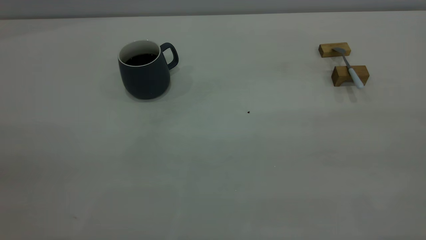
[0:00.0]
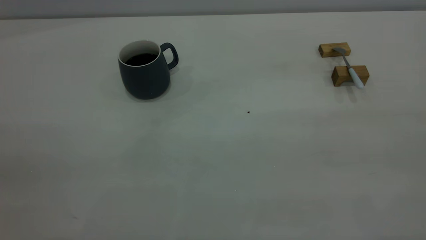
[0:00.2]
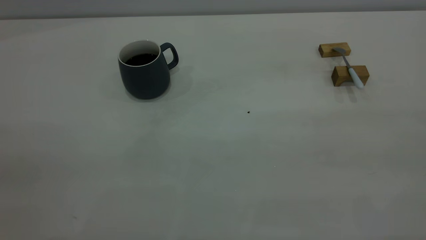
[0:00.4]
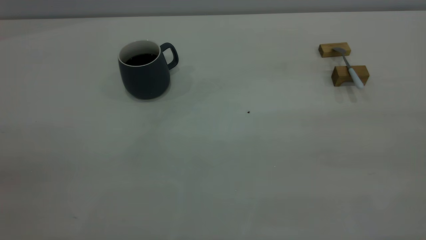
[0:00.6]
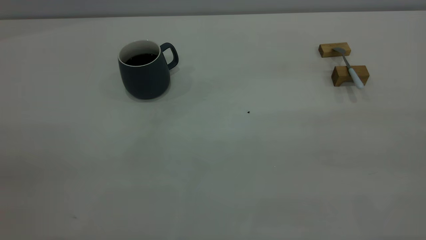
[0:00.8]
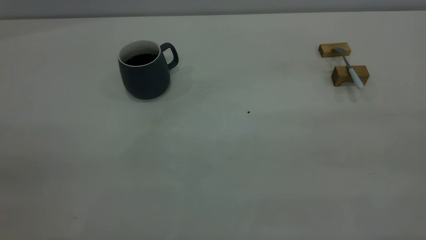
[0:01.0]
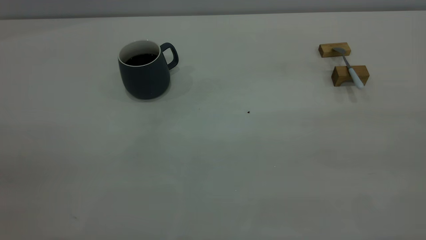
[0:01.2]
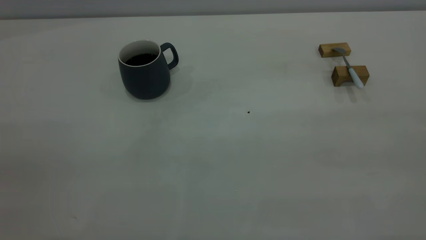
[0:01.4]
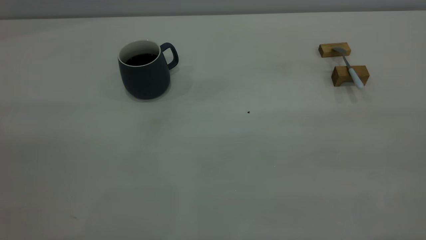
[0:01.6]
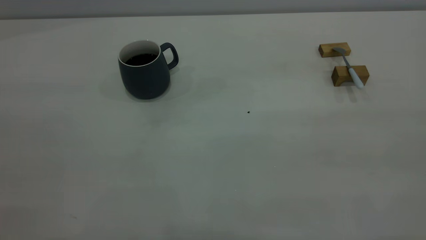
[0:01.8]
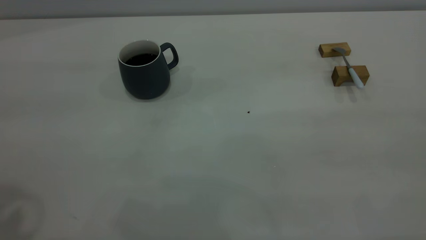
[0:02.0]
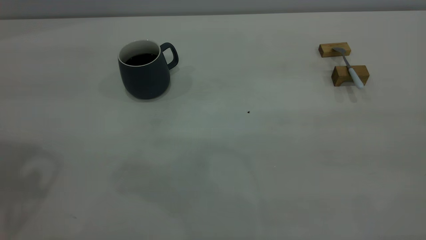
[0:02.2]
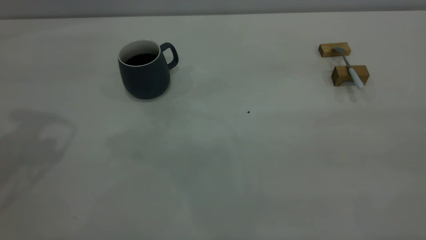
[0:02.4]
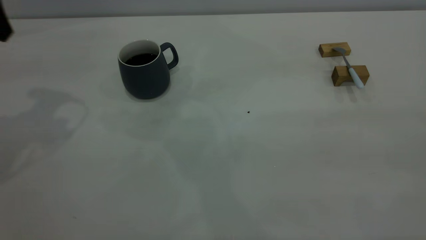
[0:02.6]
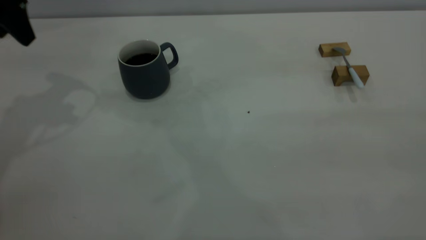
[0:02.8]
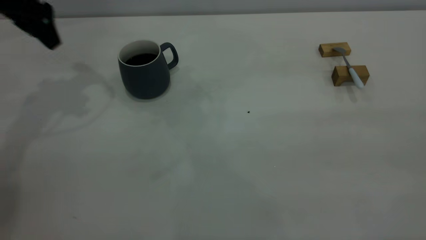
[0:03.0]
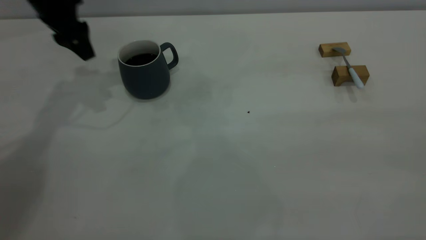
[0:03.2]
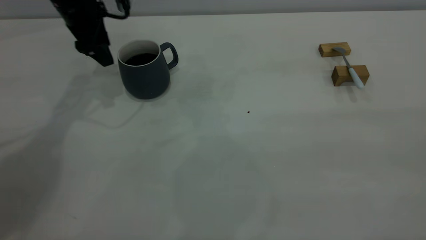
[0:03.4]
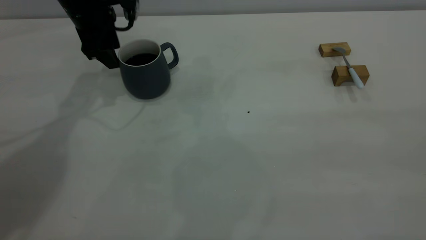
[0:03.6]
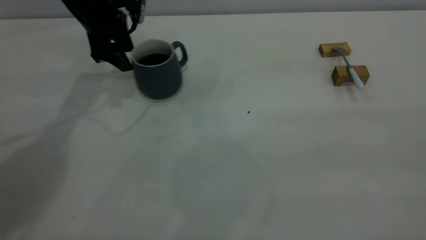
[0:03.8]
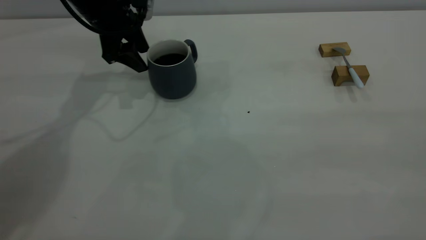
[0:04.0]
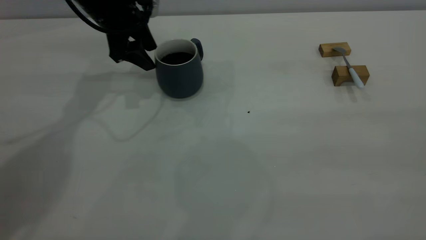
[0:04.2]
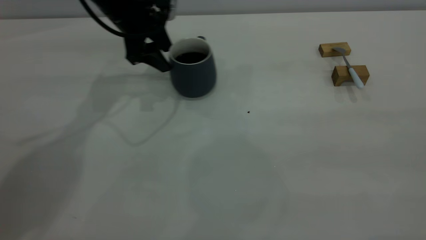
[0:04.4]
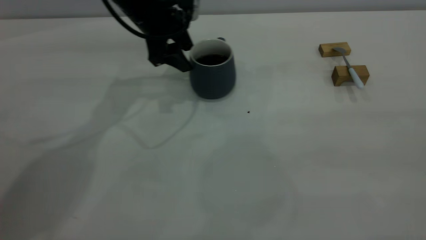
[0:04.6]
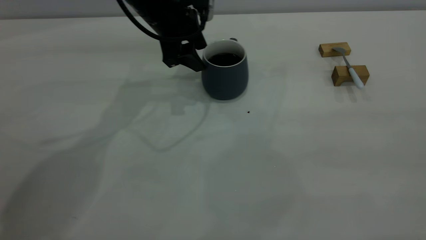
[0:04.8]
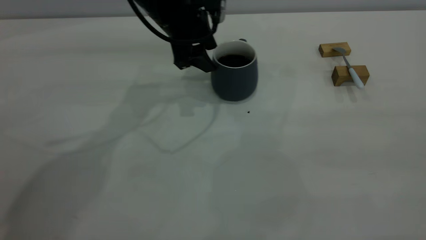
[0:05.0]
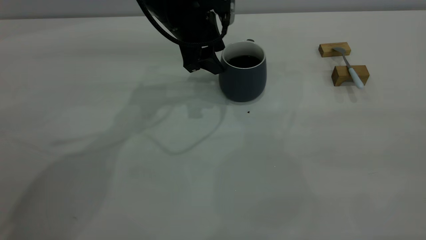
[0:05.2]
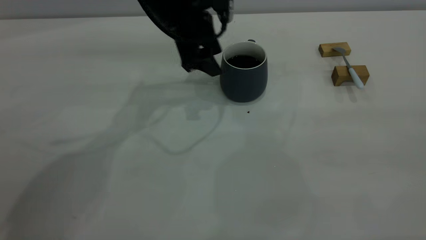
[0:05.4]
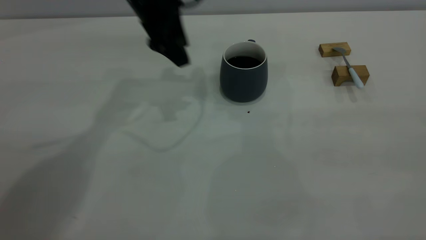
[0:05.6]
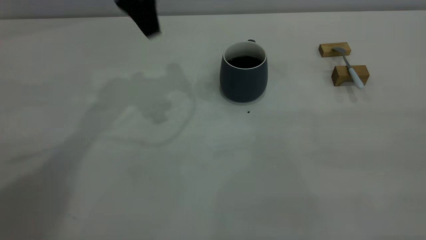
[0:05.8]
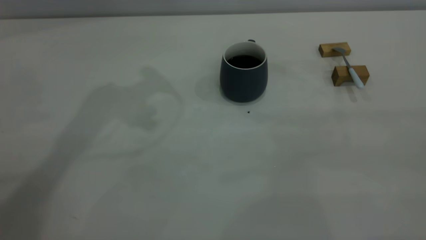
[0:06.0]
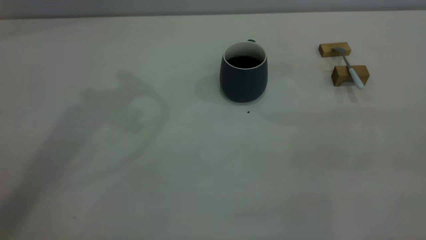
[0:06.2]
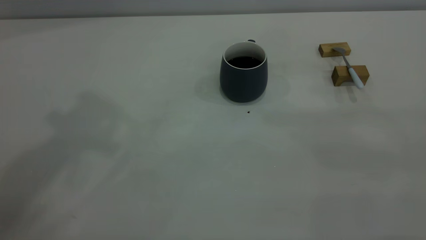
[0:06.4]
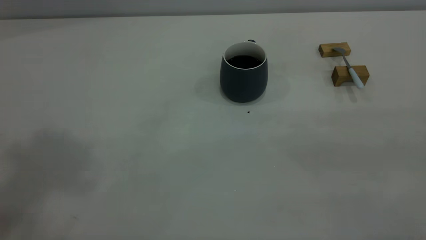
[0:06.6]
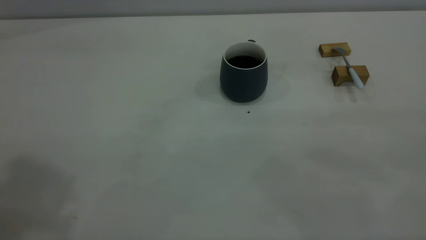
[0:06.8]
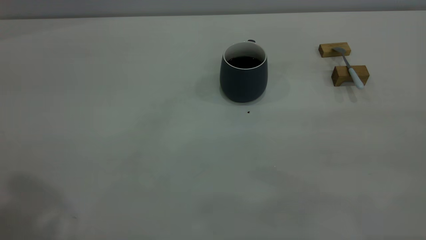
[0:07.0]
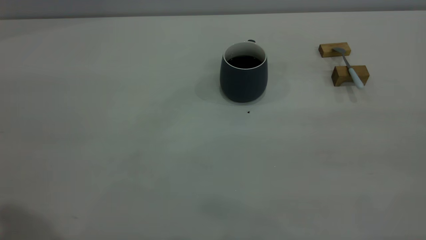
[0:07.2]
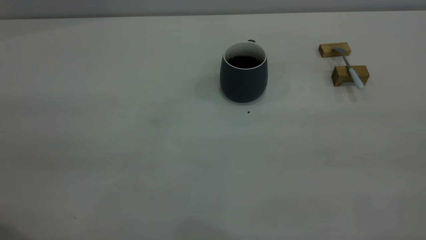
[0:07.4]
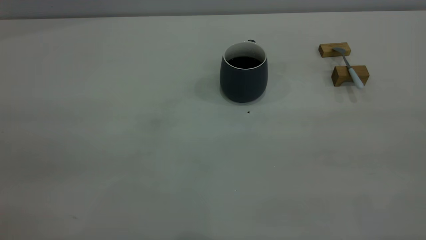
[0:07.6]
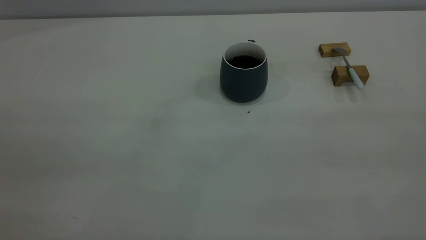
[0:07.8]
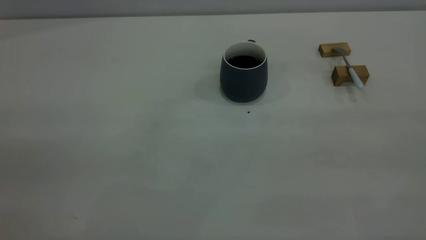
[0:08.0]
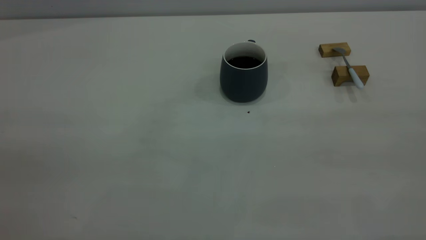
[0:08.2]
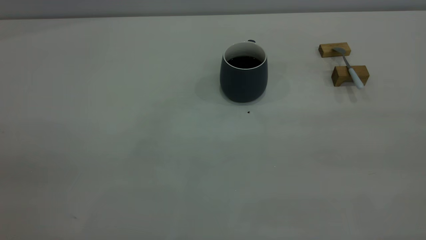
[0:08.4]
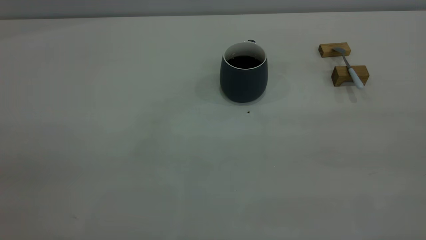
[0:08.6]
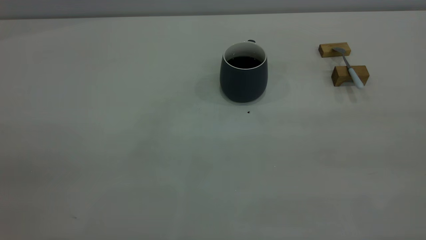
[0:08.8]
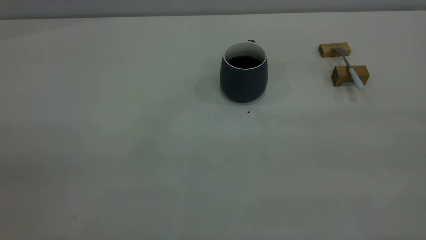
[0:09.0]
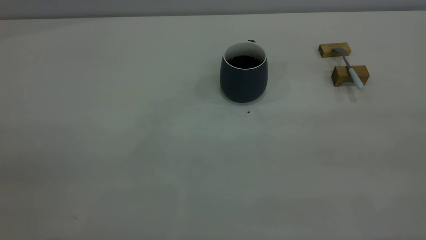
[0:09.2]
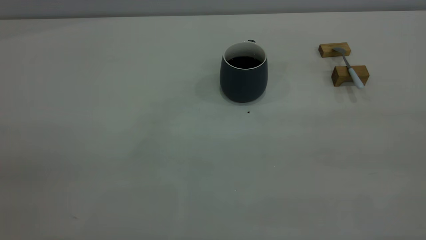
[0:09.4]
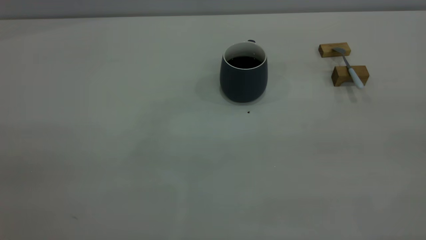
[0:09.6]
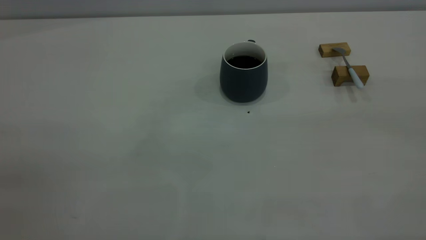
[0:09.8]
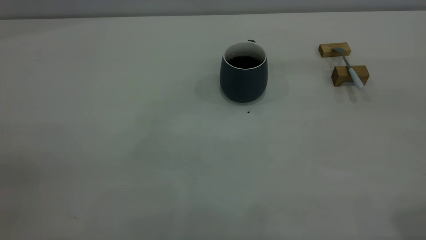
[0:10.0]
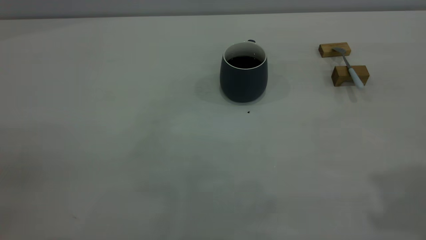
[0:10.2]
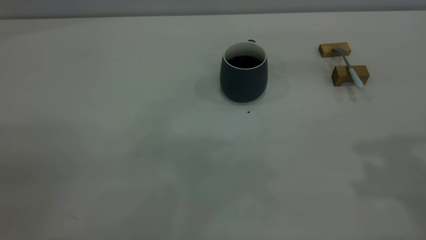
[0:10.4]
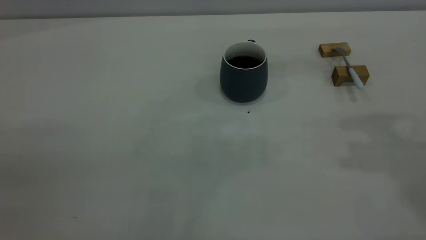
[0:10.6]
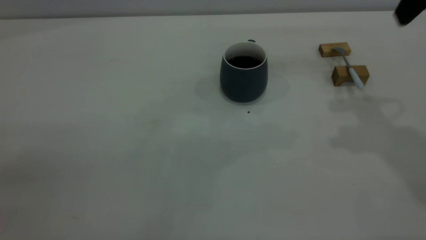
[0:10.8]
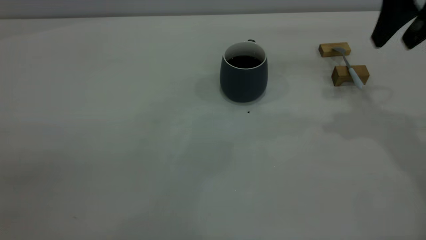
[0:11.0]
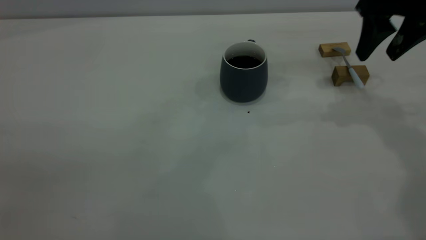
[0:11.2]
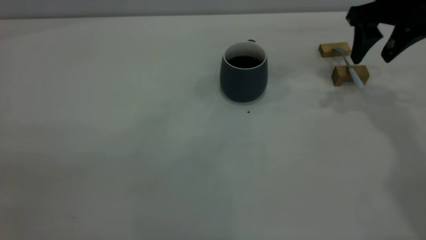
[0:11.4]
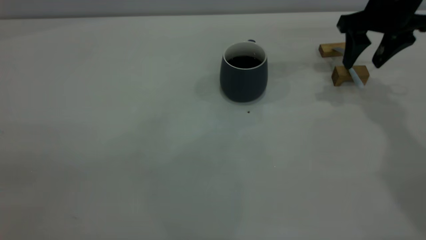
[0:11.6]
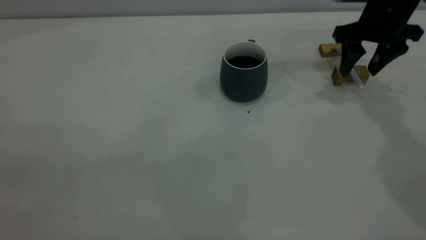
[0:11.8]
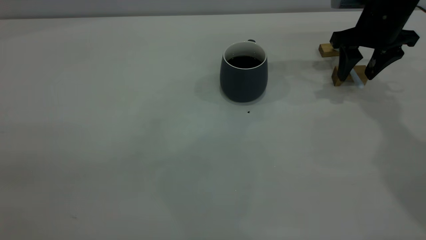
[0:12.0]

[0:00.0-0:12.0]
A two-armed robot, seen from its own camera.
Step, 0:00.0 to 0:05.6: Move the cup with coffee to the center of view.
0:01.6 to 0:03.0: The left gripper is displaced forward and downward by approximately 40 cm.
0:03.0 to 0:04.4: The left gripper travels to the right and downward by about 15 cm.
0:04.4 to 0:06.0: The left gripper heads upward, covering approximately 20 cm.
0:10.4 to 0:12.0: The right gripper heads downward and forward, covering approximately 35 cm.

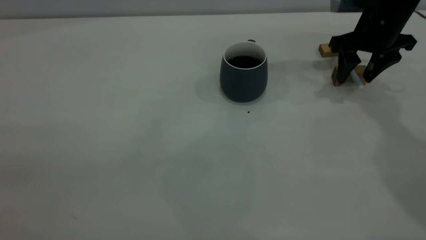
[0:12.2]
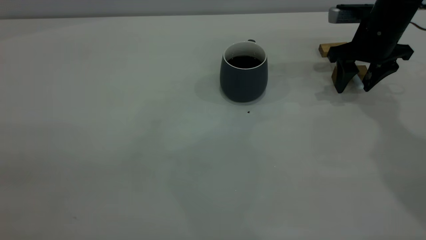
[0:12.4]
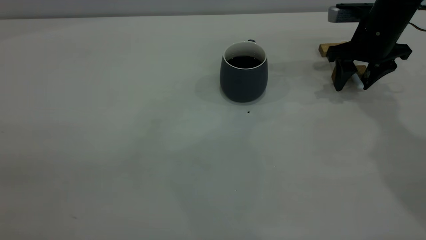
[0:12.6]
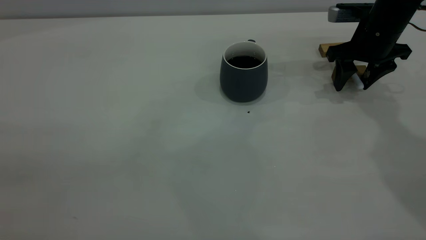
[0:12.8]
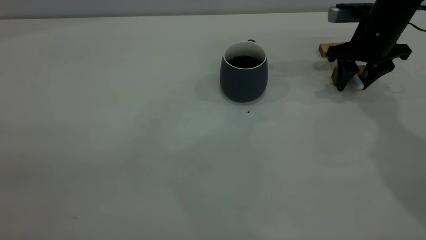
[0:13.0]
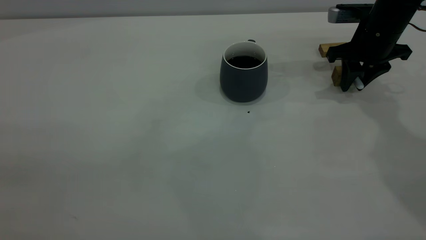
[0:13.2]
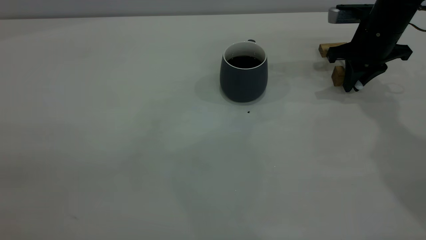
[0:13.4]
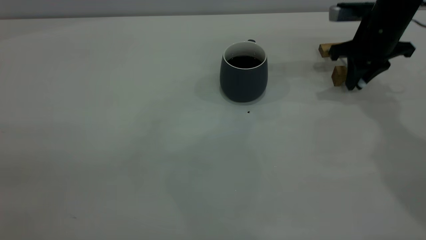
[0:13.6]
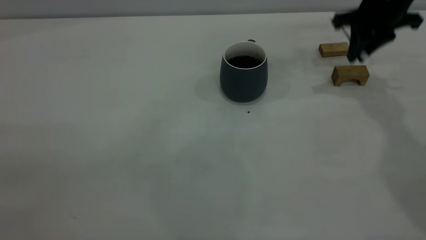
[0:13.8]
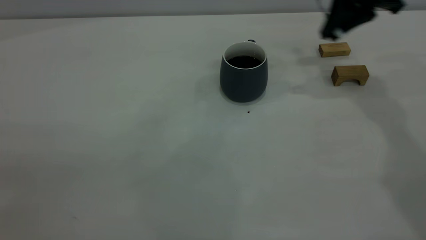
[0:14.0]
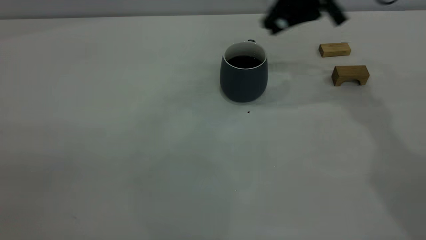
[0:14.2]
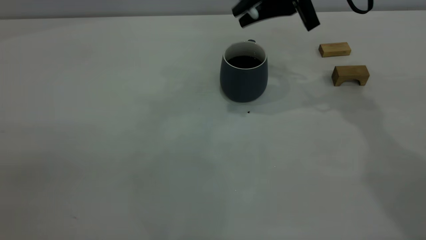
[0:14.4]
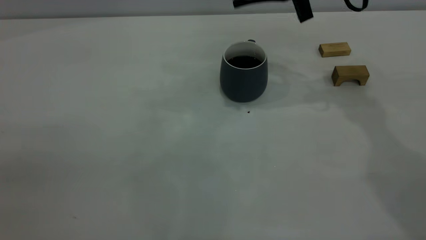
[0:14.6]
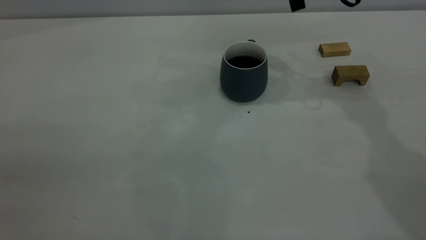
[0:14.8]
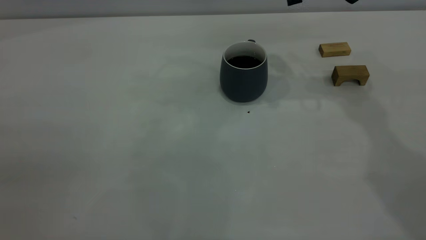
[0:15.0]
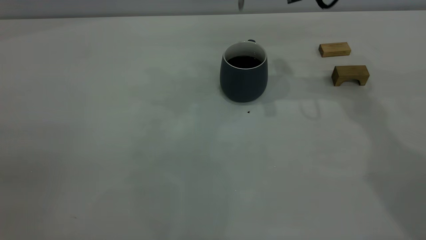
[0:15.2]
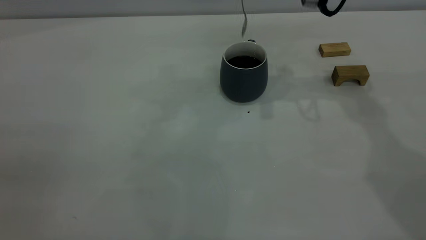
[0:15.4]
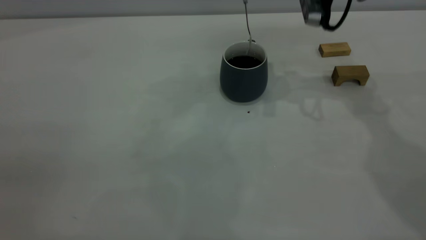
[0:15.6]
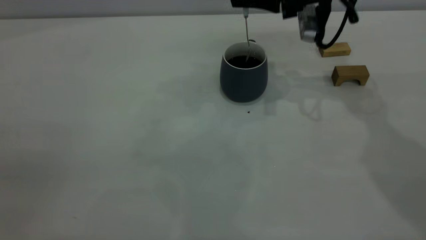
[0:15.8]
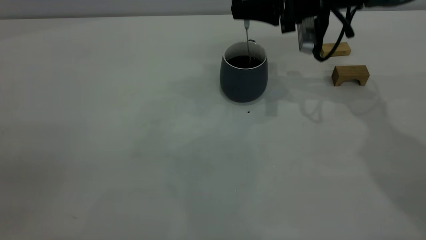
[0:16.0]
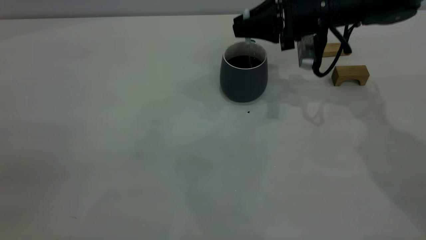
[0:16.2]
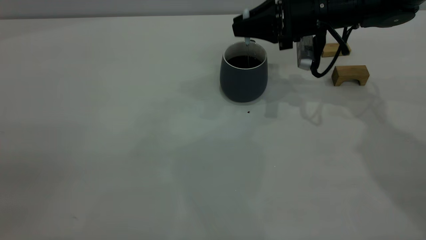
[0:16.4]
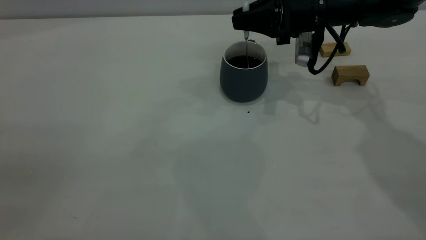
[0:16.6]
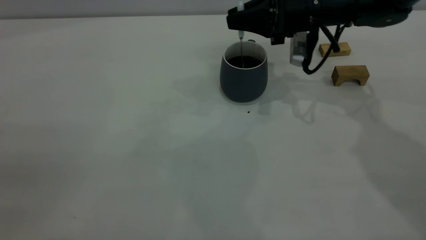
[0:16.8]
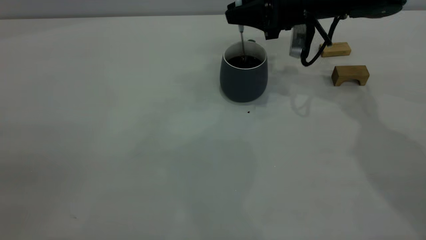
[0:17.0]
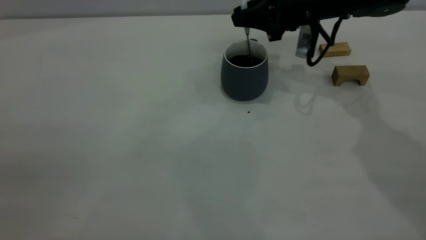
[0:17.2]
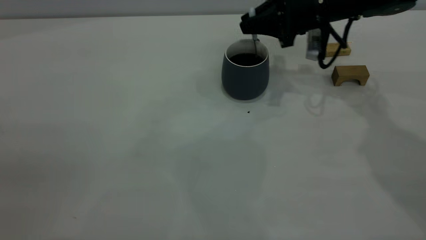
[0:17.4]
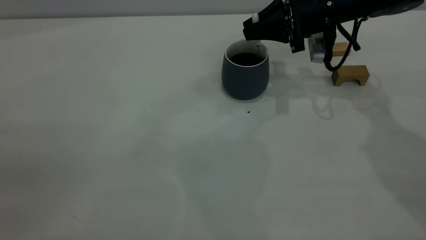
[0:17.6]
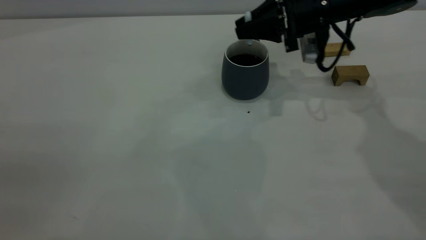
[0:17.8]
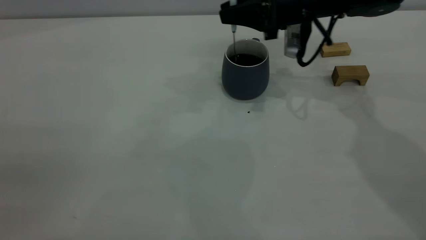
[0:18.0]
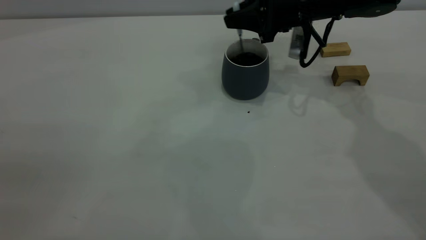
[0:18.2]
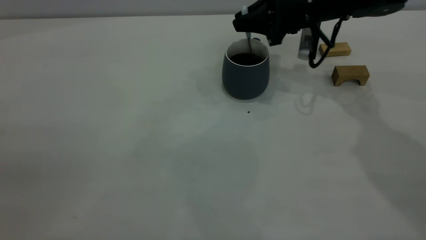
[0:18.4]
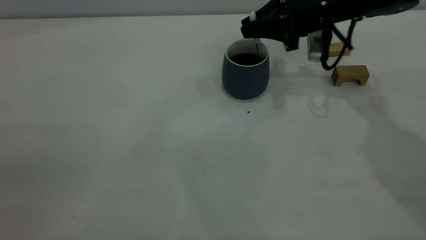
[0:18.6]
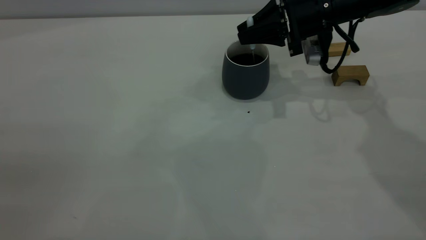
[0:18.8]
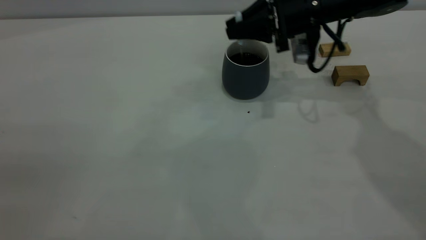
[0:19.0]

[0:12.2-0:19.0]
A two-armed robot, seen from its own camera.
0:12.2 to 0:13.6: The right gripper closes its fingers.
0:13.6 to 0:15.0: The right gripper travels upward and to the left by about 15 cm.
0:15.0 to 0:16.2: The right gripper goes about 10 cm downward.
0:16.2 to 0:19.0: The grippers move only a little.
